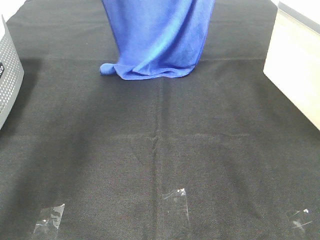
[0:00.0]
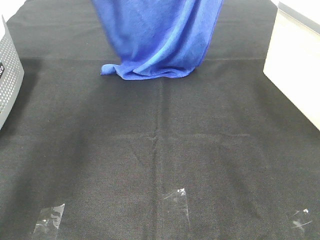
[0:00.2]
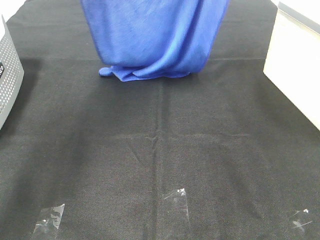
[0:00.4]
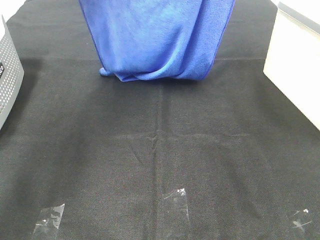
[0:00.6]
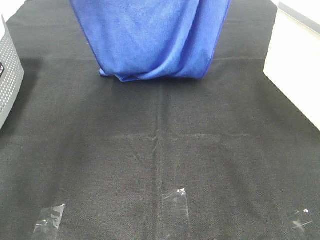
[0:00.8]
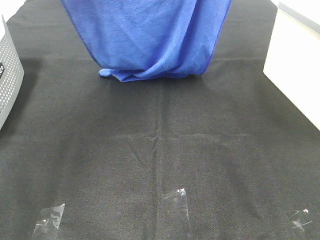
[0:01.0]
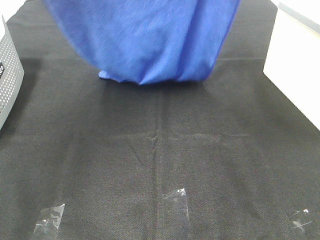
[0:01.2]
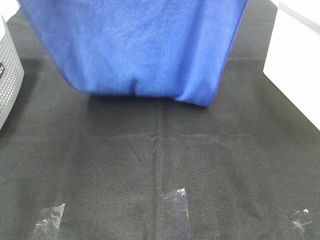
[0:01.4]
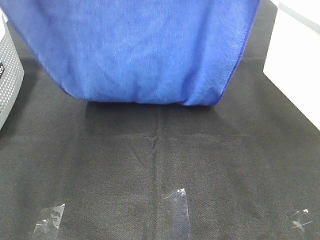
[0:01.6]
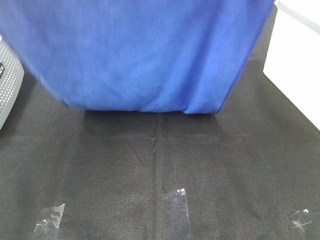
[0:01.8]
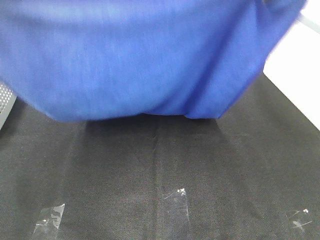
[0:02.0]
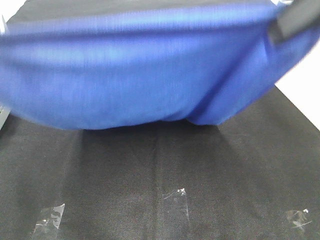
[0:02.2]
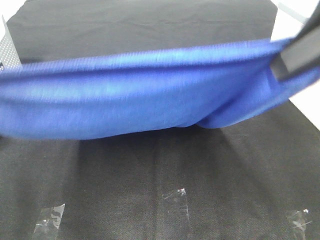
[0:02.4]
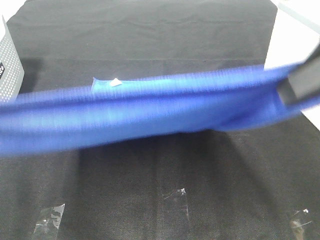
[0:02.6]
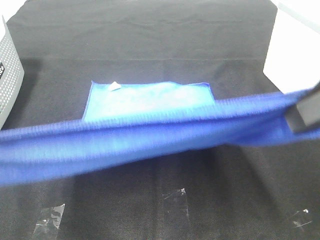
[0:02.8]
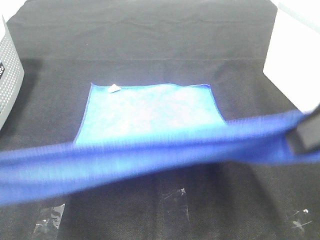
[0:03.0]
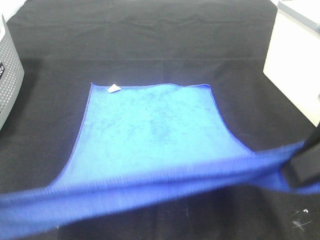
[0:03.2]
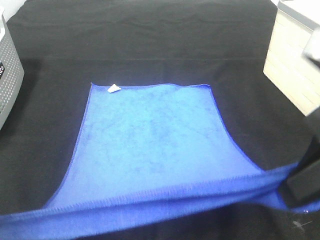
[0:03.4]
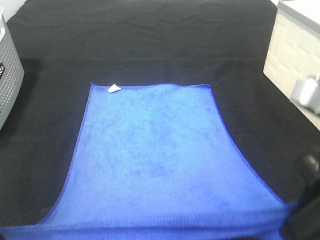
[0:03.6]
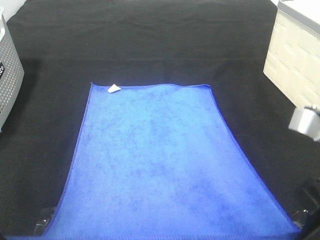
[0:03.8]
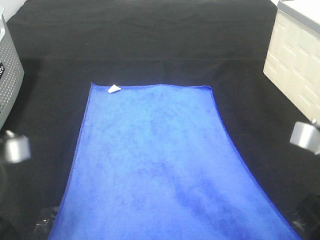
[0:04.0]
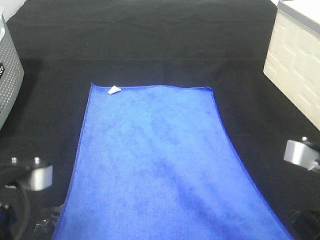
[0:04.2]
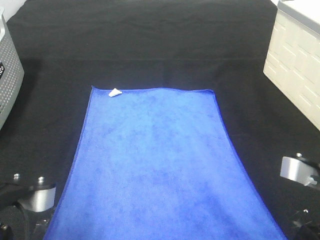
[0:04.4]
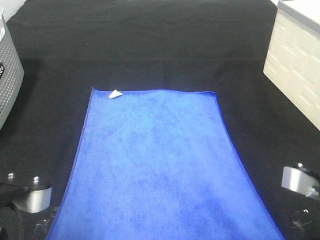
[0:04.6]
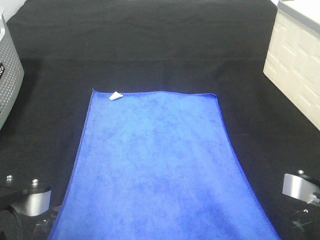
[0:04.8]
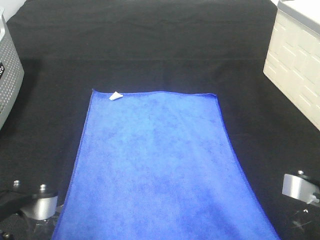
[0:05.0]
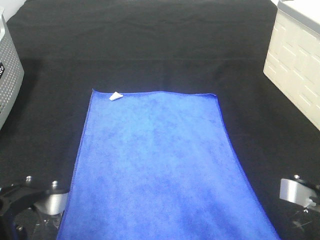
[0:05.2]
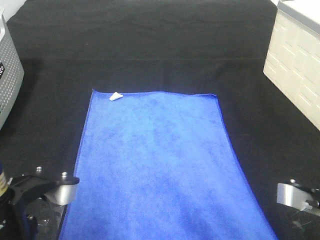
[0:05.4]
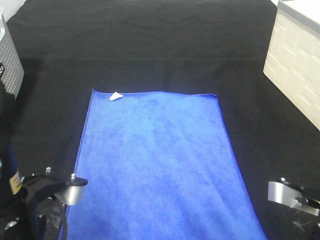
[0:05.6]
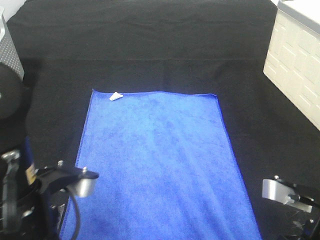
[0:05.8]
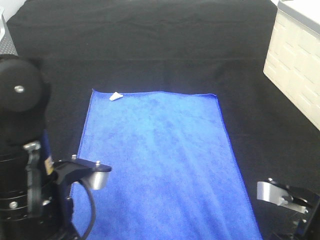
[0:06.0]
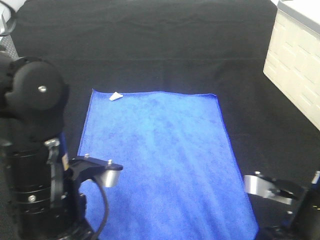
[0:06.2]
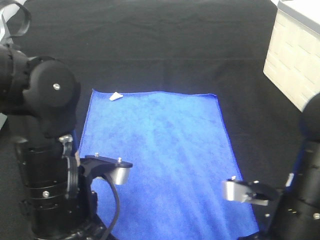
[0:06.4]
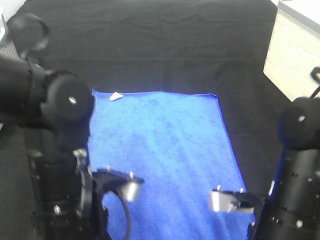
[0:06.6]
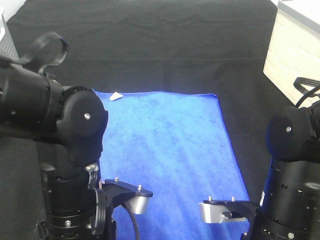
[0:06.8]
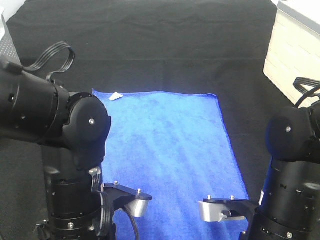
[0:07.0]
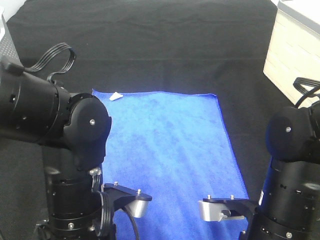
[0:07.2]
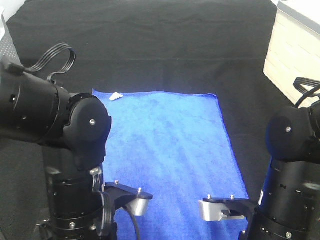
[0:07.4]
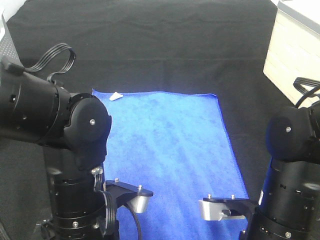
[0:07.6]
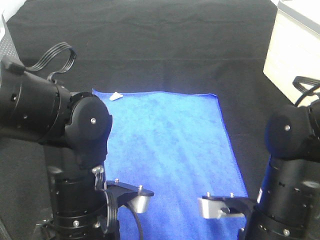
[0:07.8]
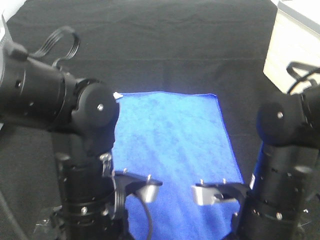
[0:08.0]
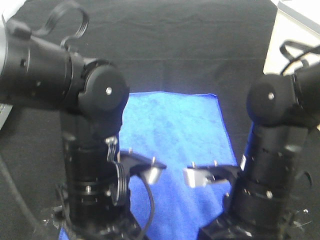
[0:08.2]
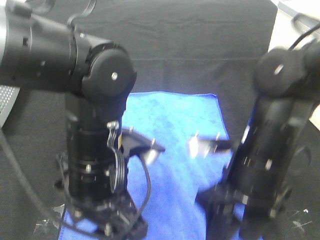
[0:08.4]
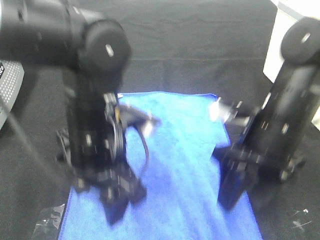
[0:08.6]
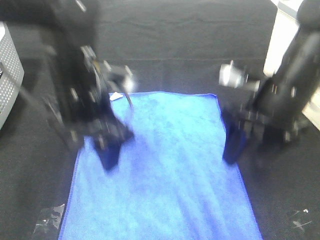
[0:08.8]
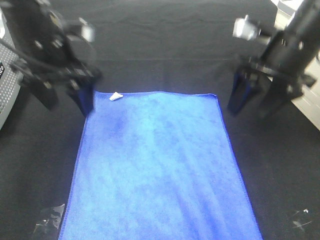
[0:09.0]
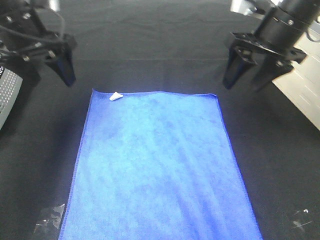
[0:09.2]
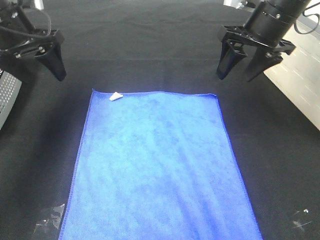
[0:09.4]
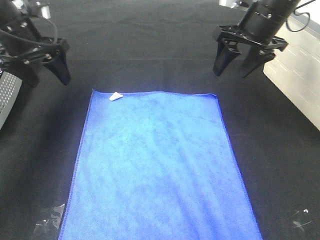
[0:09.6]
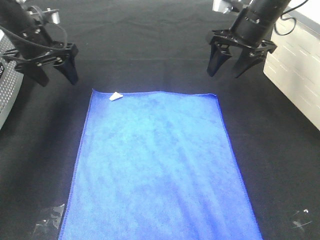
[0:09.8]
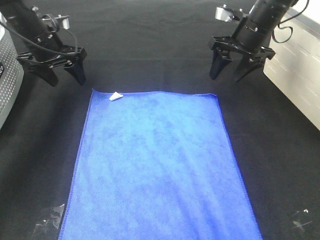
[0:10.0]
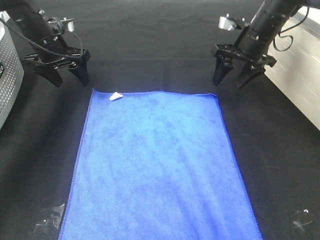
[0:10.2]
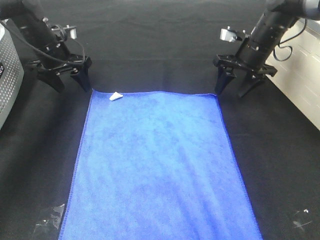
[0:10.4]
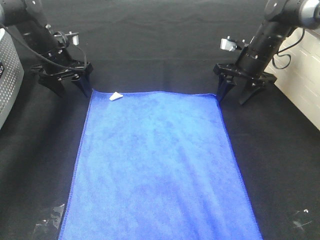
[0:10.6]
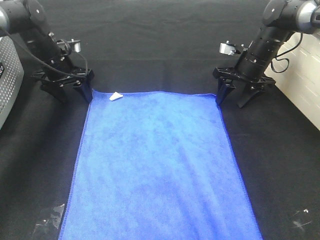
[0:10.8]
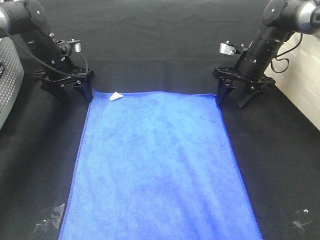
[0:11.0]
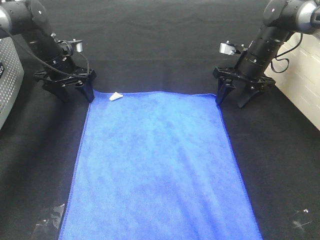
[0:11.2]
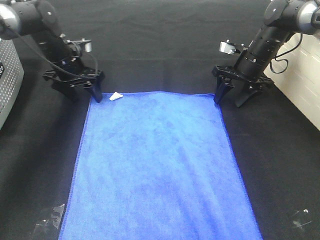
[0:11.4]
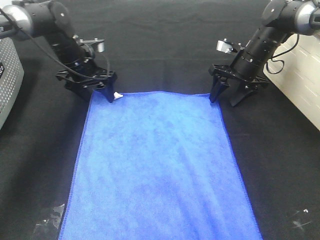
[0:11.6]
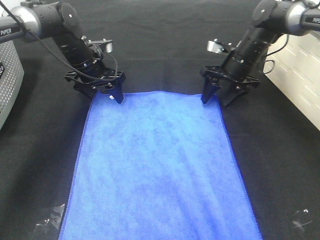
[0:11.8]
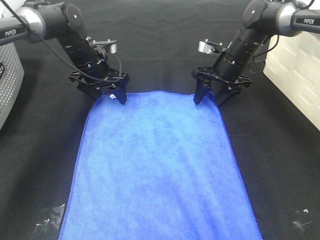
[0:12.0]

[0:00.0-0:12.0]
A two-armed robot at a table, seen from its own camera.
Task of the whole recording: Remove the towel and place it.
Step, 0:02.0 to 0:10.2: Left hand:adjust the blue towel.
Step, 0:02.0 to 0:10.2: Right hand:adjust the blue towel.
0:00.0 to 0:01.6: Both grippers travel together backward, about 20 cm.
0:01.6 to 0:03.0: The right gripper heads backward and downward, covering roughly 20 cm; the left gripper travels downward and backward by about 20 cm.
0:03.0 to 0:04.4: The left gripper goes some 15 cm downward and to the right, while the right gripper travels downward by roughly 15 cm.
0:04.4 to 0:06.0: The left gripper changes place by some 5 cm. Meanwhile the right gripper travels downward by about 5 cm.
0:06.0 to 0:07.6: The right gripper moves to the left, some 5 cm, and opens its fingers. The left gripper moves approximately 5 cm, and opens.
0:07.6 to 0:09.0: The left gripper is displaced forward, upward and to the left by approximately 25 cm; the right gripper goes about 25 cm forward and upward.
0:09.0 to 0:10.4: The left gripper travels forward, downward and to the left by about 20 cm, while the right gripper travels forward and downward by about 20 cm.
0:10.4 to 0:12.0: The left gripper is displaced to the right by approximately 10 cm; the right gripper moves roughly 5 cm.

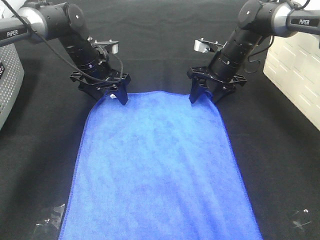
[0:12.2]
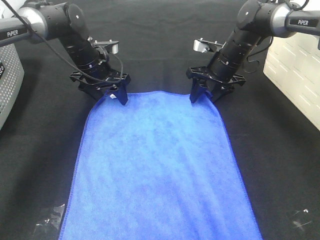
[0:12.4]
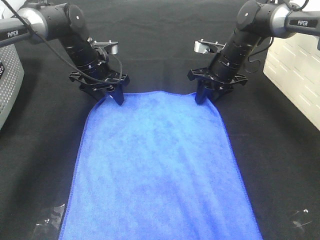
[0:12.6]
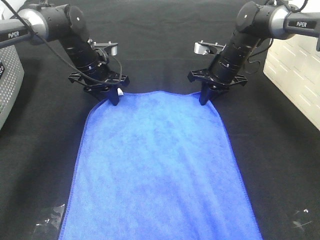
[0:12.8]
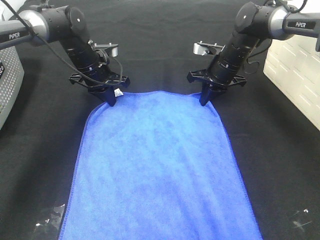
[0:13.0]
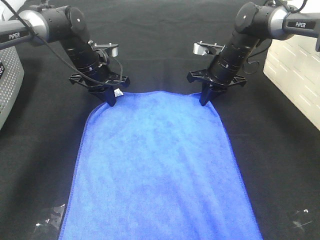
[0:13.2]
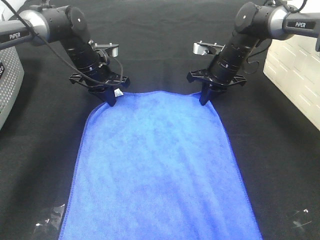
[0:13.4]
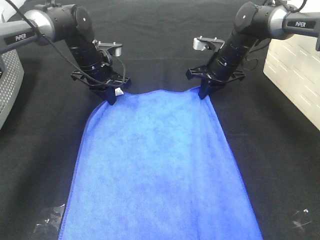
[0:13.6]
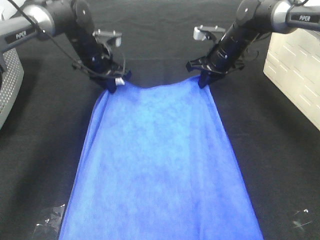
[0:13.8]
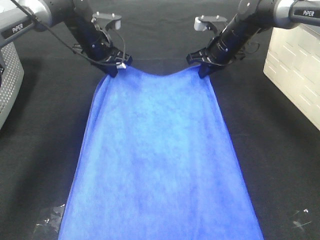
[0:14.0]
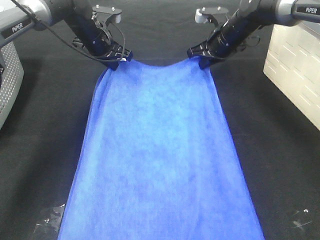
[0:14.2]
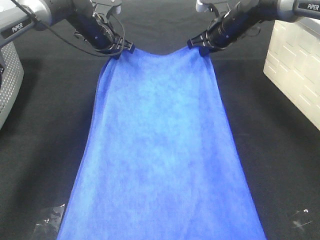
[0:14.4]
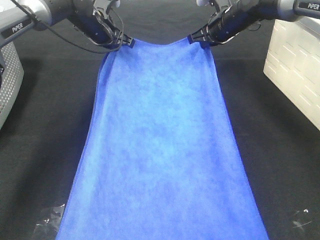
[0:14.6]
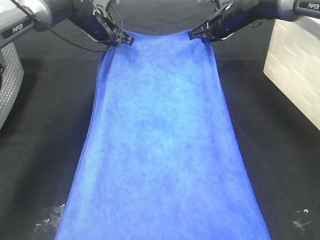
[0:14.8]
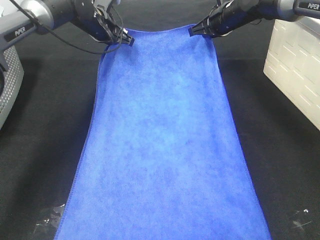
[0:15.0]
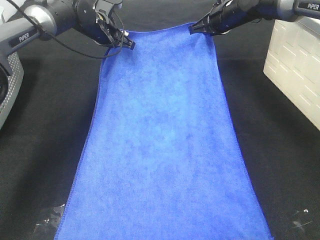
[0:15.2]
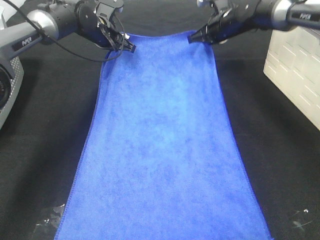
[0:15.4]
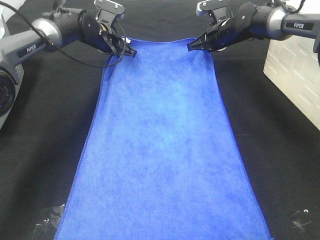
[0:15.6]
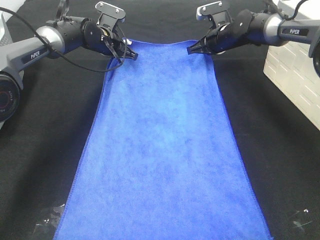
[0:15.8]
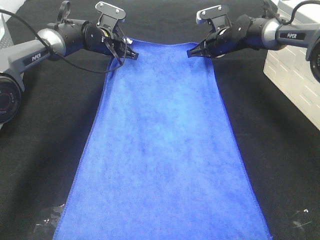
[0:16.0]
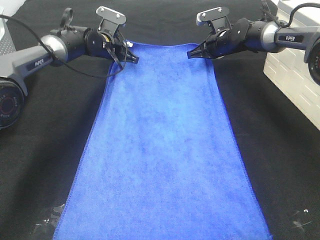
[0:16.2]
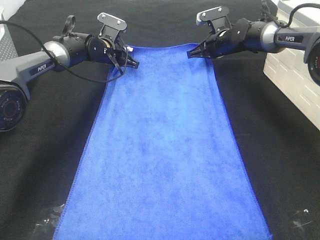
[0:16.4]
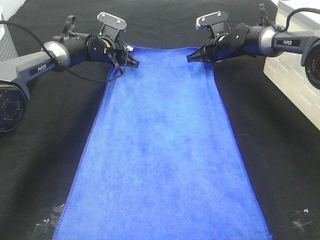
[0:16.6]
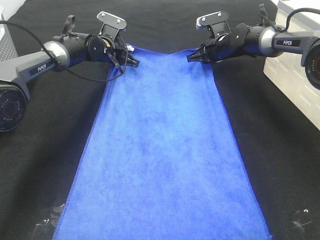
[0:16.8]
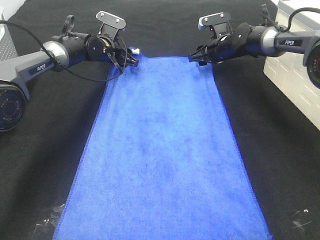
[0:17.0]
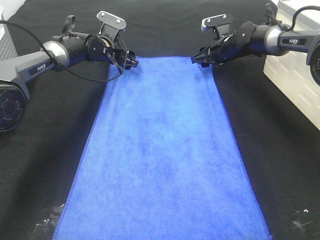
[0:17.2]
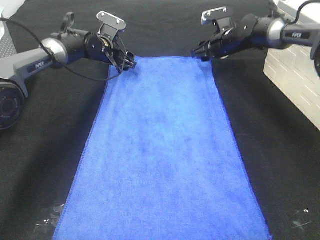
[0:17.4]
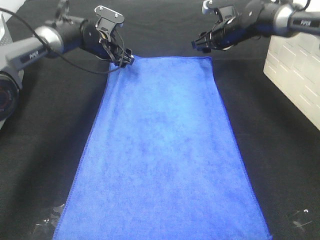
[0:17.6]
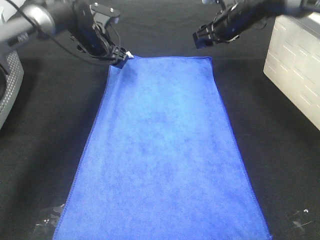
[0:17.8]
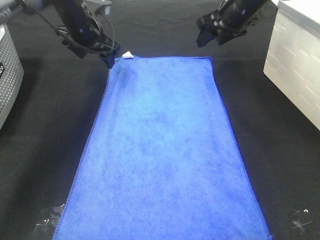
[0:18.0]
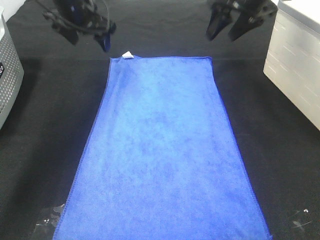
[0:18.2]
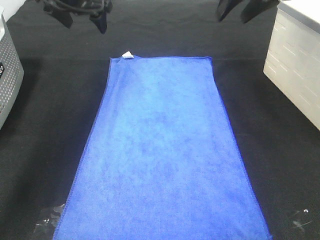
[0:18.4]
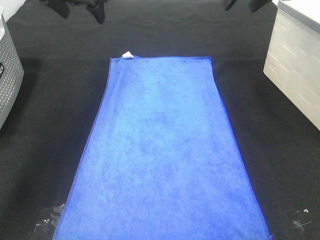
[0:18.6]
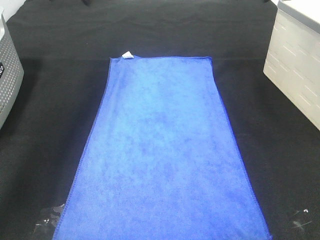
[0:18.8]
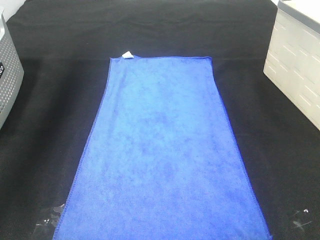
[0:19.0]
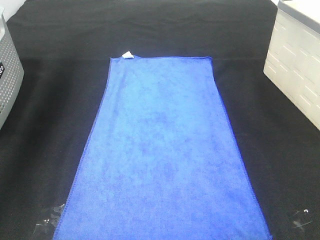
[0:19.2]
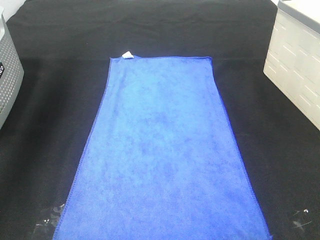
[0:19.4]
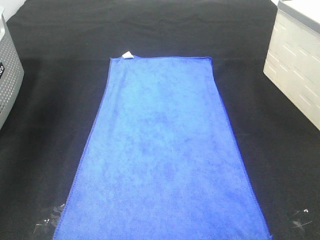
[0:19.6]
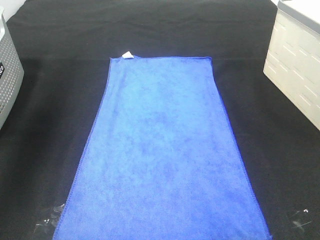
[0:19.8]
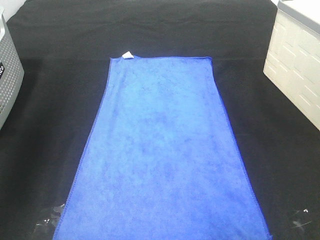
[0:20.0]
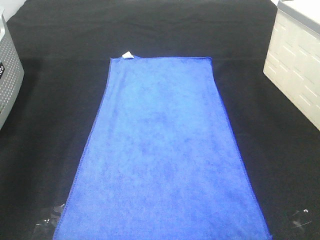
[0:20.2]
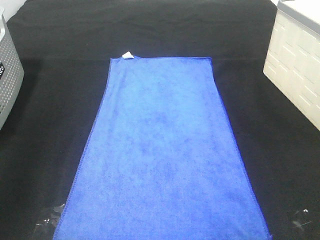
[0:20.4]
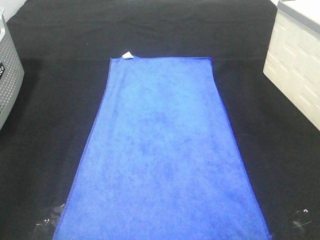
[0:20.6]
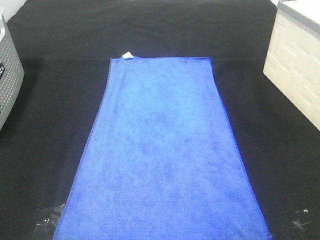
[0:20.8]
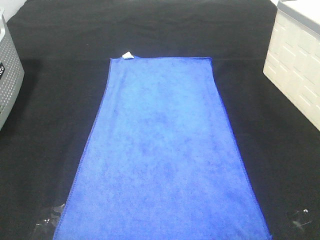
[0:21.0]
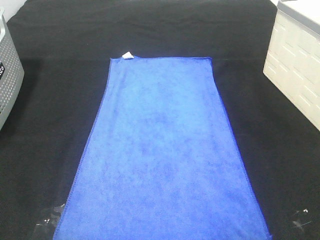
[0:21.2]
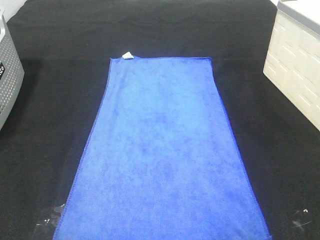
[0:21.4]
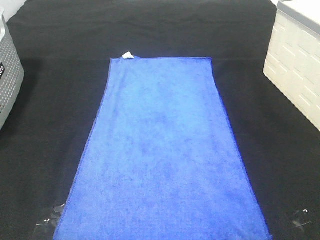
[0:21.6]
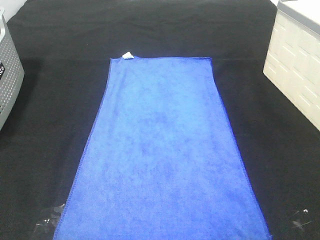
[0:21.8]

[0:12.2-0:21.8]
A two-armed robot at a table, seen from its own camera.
Task of the whole recording: Remove the towel and place it.
0:12.2 to 0:13.8: The right gripper closes its fingers; the left gripper closes up.
0:13.8 to 0:15.4: The left gripper travels forward by some 5 cm; the right gripper moves approximately 5 cm.
0:15.4 to 0:17.0: The two grippers go some 5 cm downward. The left gripper opens up; the right gripper opens its fingers.
0:17.0 to 0:18.6: Both grippers travel together upward and backward, approximately 25 cm.
0:18.6 to 0:20.2: The right gripper moves backward, about 35 cm. The left gripper goes some 35 cm backward and to the left.
0:20.2 to 0:21.8: The left gripper moves backward, about 25 cm.
